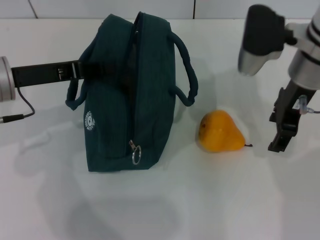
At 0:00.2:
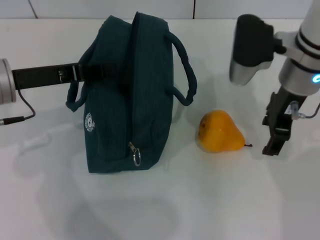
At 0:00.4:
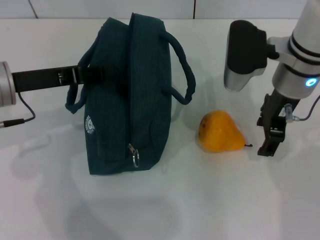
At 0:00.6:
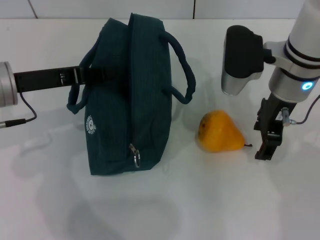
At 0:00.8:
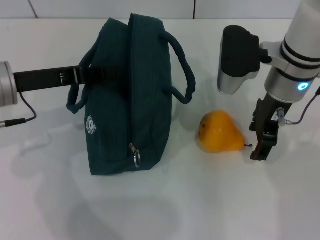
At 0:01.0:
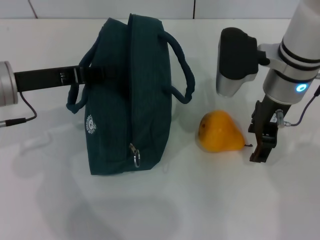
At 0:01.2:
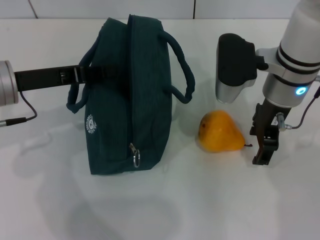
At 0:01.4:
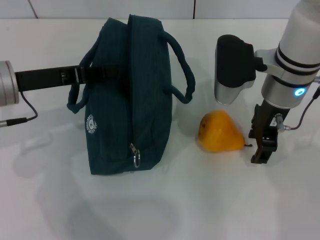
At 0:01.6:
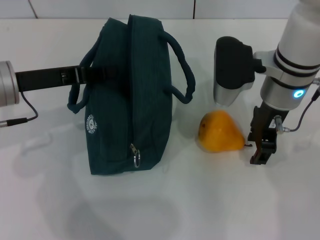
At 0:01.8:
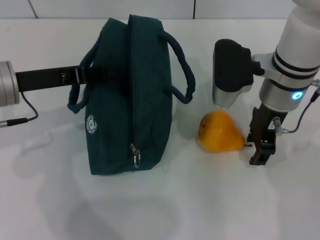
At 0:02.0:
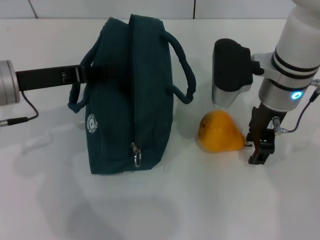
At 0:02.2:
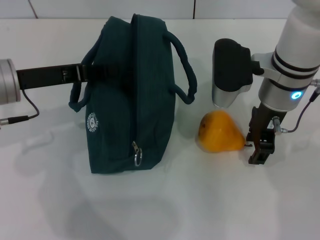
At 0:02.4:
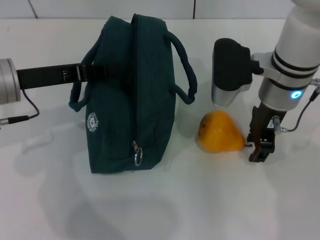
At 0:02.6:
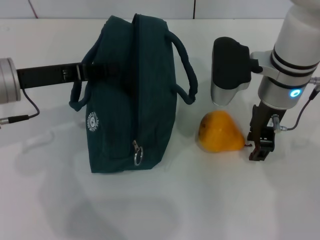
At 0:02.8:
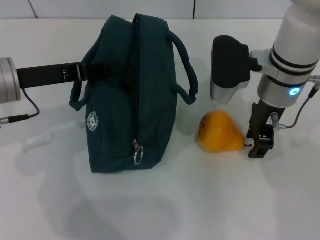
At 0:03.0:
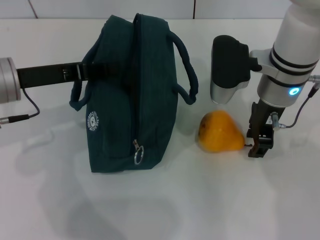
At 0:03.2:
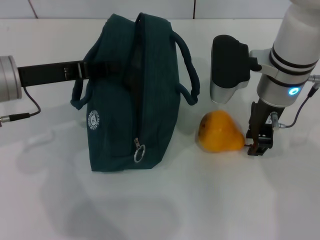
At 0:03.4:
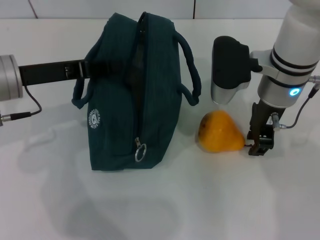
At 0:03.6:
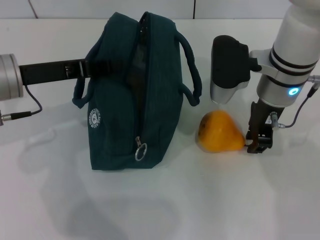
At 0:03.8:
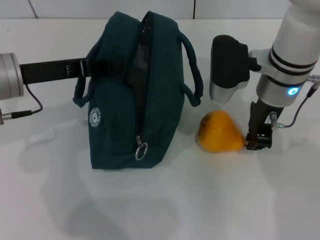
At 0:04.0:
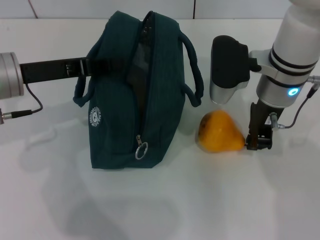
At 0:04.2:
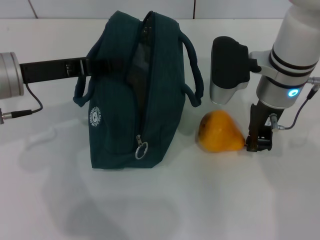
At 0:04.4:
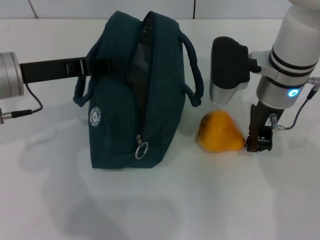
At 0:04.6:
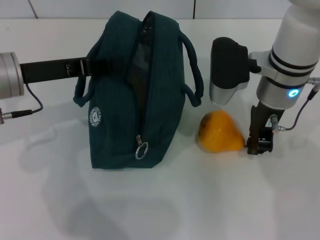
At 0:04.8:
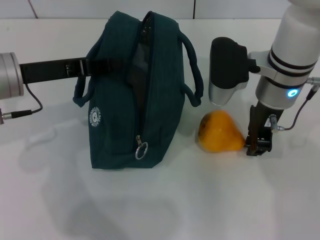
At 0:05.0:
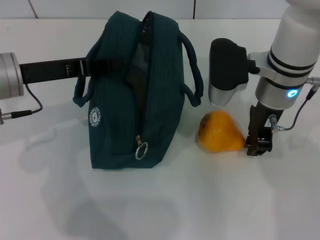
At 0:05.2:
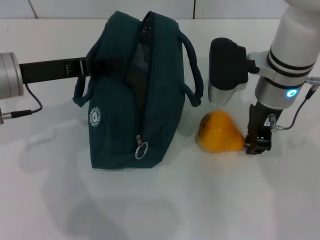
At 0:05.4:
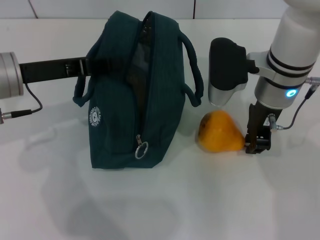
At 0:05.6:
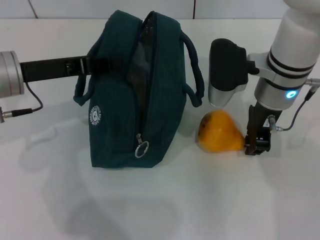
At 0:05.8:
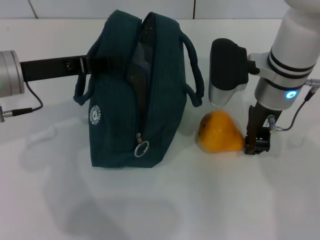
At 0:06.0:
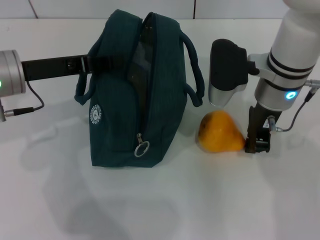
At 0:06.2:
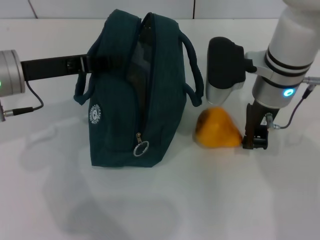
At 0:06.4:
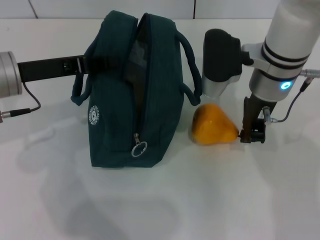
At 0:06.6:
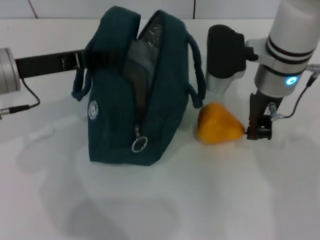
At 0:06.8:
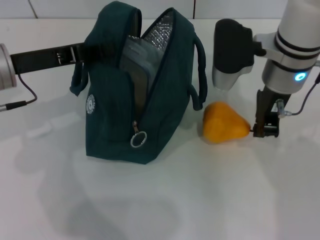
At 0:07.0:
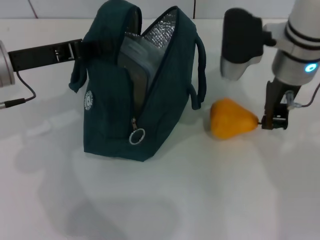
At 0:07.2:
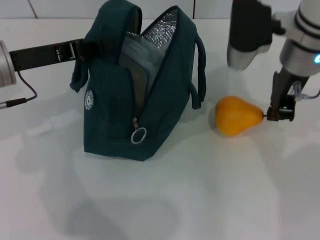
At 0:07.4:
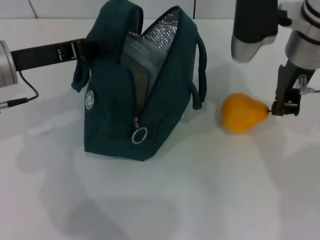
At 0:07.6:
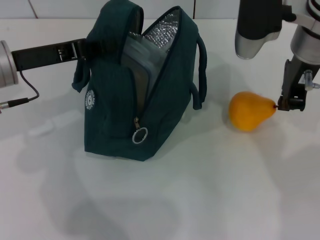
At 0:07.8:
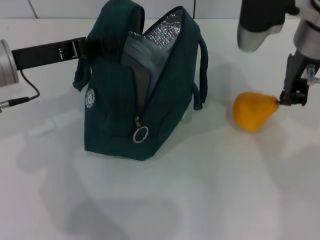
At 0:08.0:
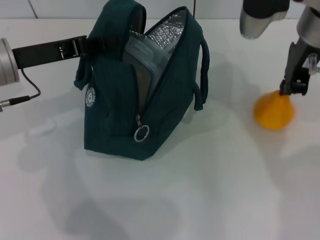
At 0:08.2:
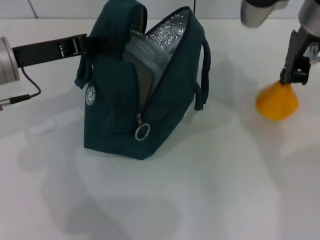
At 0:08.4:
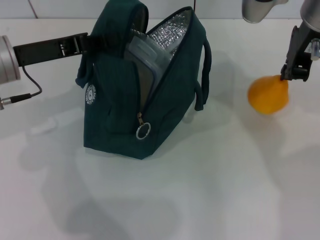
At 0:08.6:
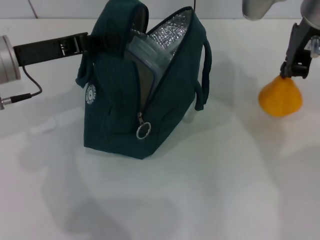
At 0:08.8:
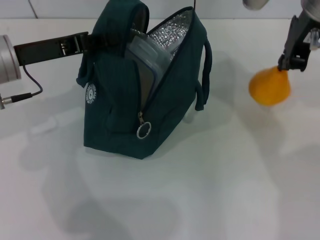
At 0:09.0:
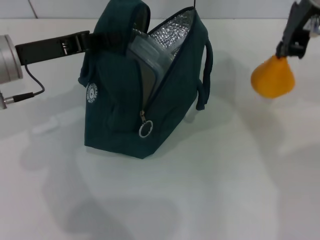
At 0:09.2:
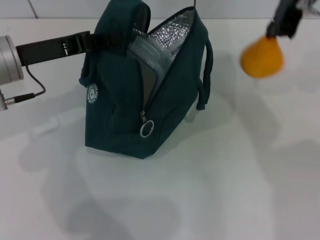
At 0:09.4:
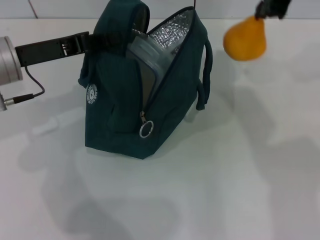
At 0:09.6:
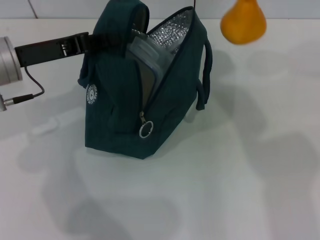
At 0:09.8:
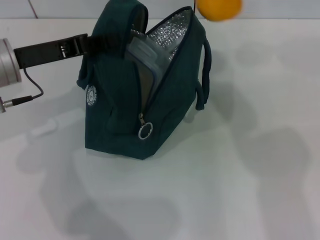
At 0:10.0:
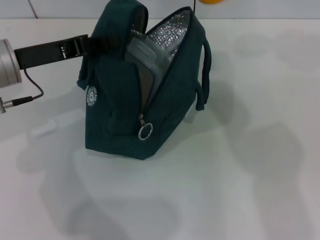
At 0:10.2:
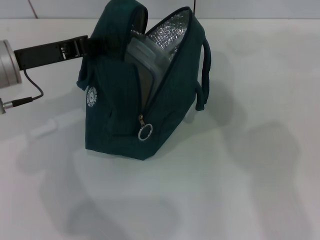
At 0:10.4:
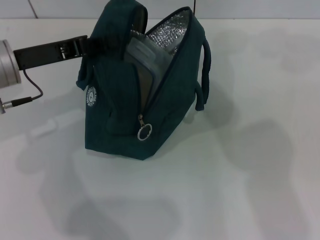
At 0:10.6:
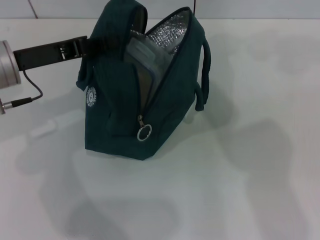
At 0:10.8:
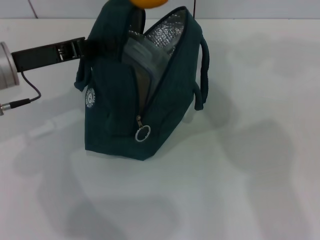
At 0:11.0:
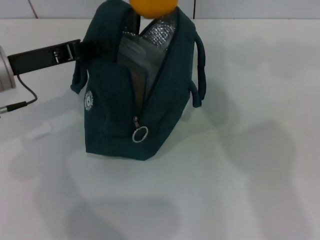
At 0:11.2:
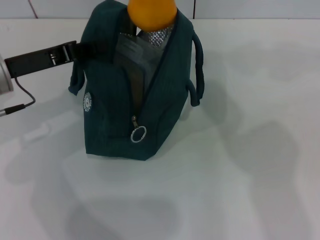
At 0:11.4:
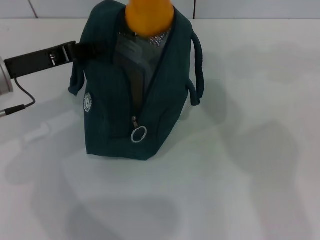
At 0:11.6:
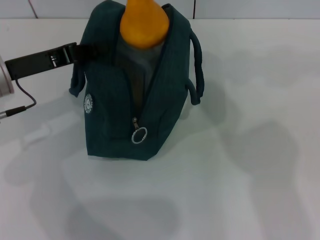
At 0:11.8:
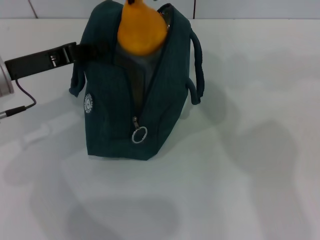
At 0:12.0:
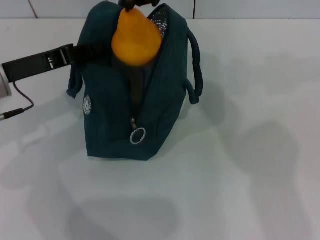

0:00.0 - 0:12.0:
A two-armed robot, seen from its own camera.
Step, 0:00.0 - 0:06.4: Grab the pear with your right hand.
0:00.0 - 0:01.6: The grippers move only a little.
0:01.6 - 0:03.0: Both grippers stay about where they are.
0:03.0 - 0:04.4: The right gripper closes.
0:04.4 - 0:06.0: Neither gripper changes place.
0:06.0 - 0:07.6: The right gripper goes some 10 cm upward.
0:07.6 - 0:09.0: The right gripper moves upward, roughly 5 cm.
0:09.0 - 0:10.4: The right gripper moves upward and to the left, some 15 cm.
0:10.4 - 0:12.0: The right gripper shifts by some 5 cm.

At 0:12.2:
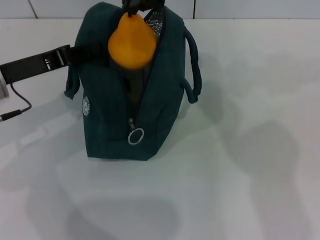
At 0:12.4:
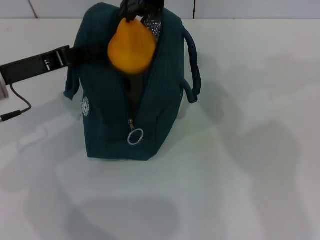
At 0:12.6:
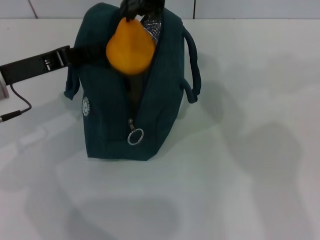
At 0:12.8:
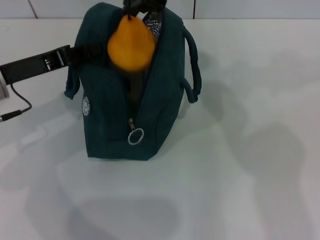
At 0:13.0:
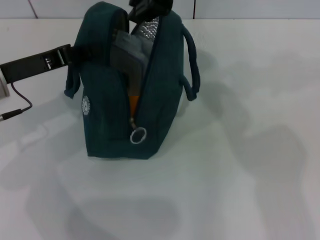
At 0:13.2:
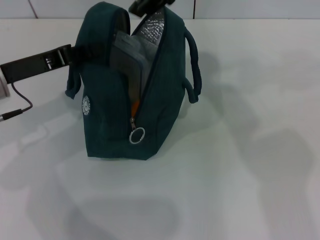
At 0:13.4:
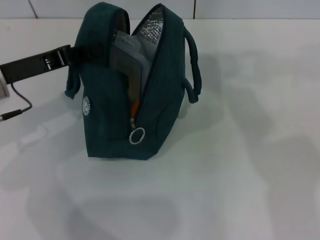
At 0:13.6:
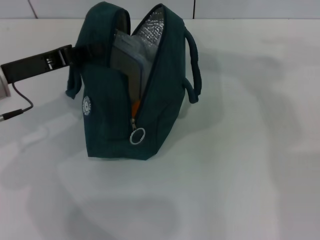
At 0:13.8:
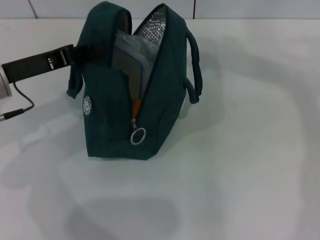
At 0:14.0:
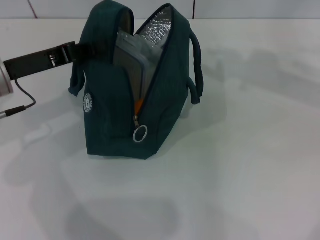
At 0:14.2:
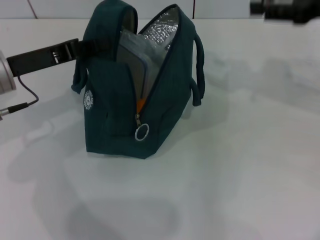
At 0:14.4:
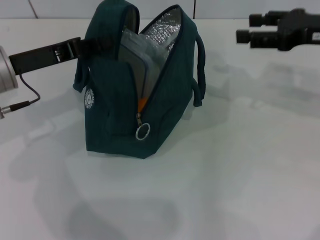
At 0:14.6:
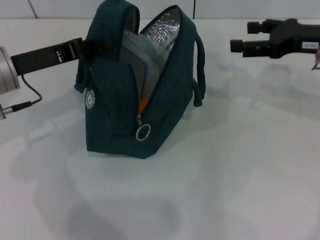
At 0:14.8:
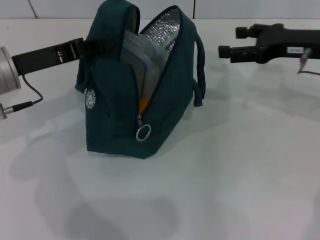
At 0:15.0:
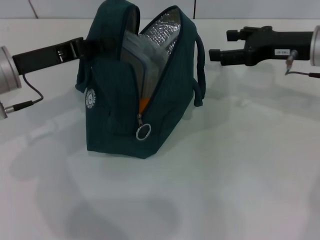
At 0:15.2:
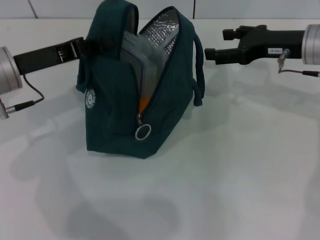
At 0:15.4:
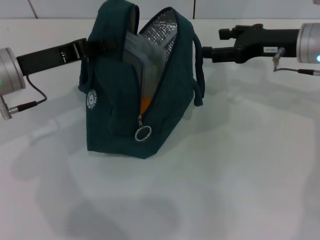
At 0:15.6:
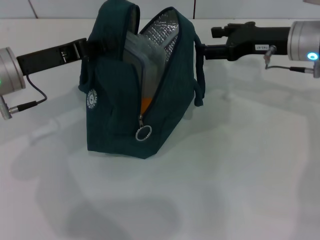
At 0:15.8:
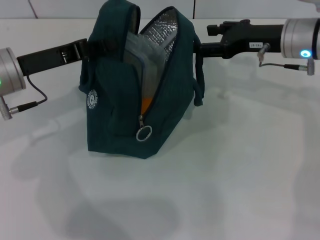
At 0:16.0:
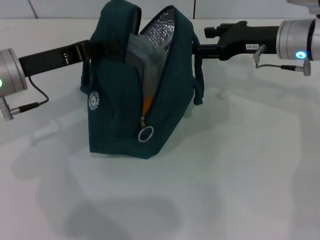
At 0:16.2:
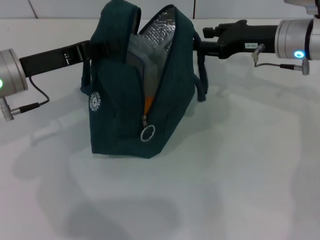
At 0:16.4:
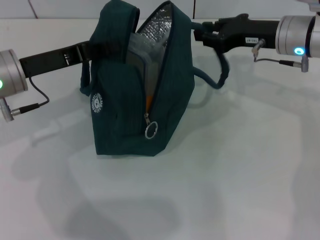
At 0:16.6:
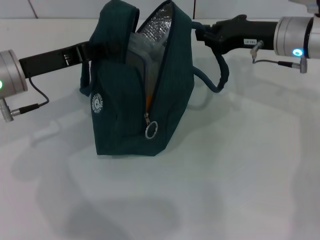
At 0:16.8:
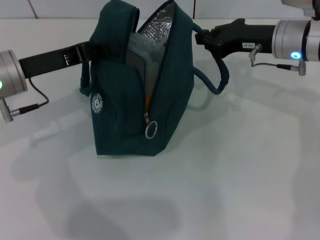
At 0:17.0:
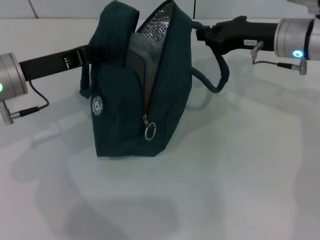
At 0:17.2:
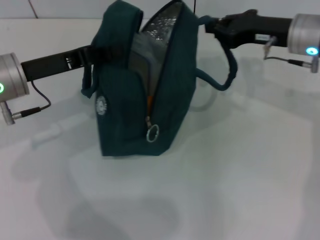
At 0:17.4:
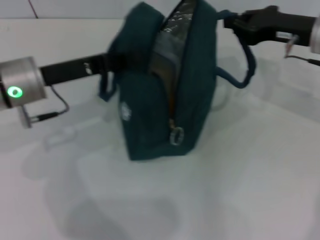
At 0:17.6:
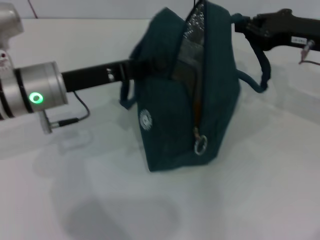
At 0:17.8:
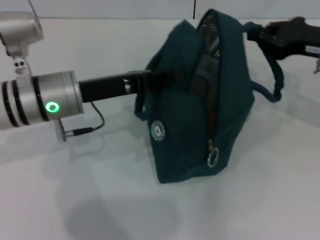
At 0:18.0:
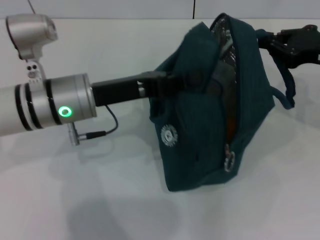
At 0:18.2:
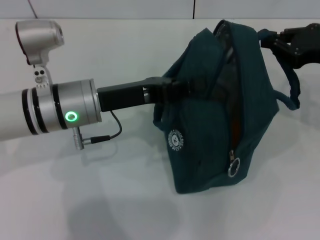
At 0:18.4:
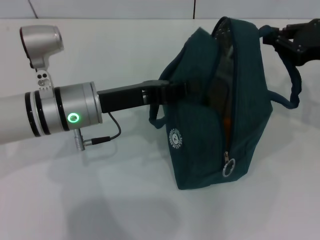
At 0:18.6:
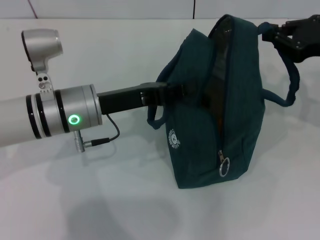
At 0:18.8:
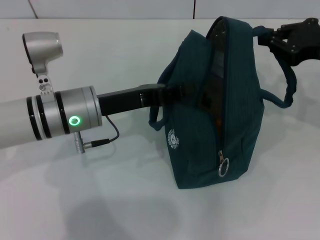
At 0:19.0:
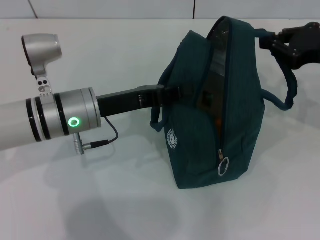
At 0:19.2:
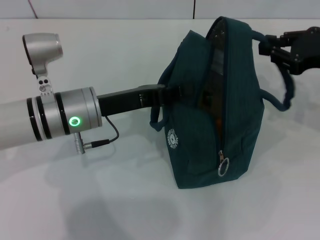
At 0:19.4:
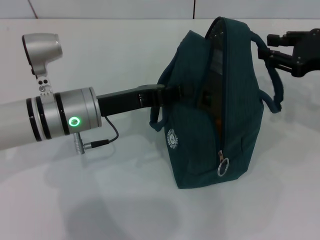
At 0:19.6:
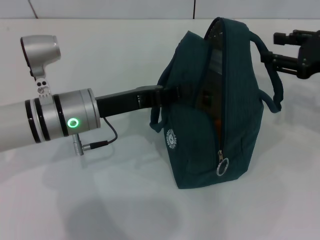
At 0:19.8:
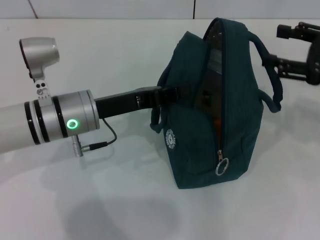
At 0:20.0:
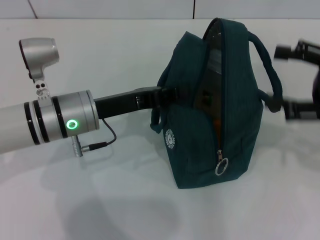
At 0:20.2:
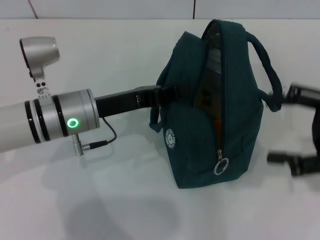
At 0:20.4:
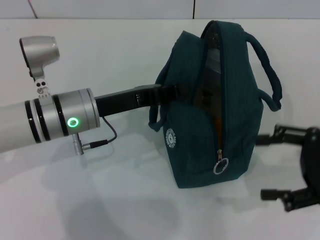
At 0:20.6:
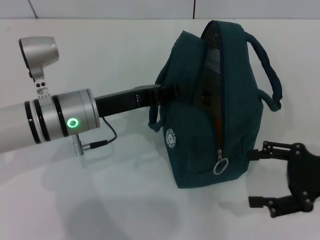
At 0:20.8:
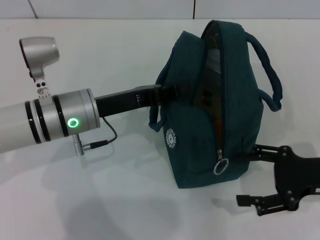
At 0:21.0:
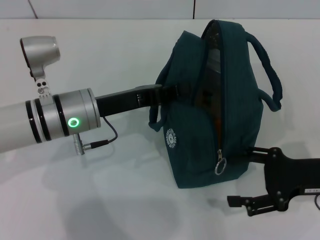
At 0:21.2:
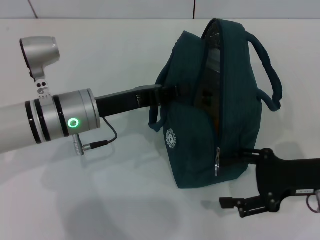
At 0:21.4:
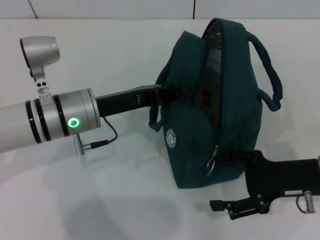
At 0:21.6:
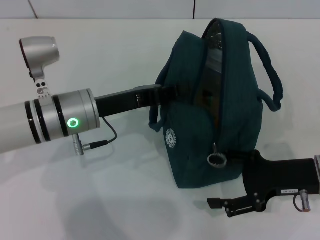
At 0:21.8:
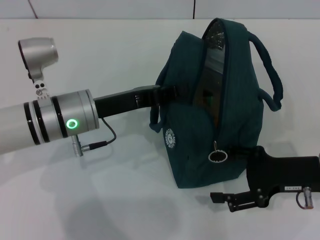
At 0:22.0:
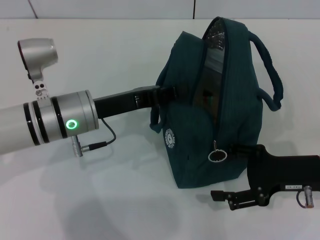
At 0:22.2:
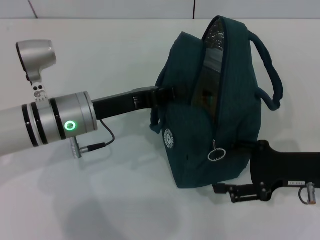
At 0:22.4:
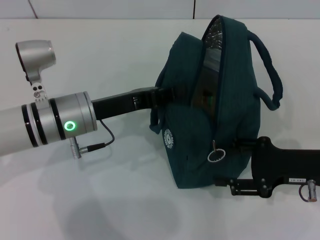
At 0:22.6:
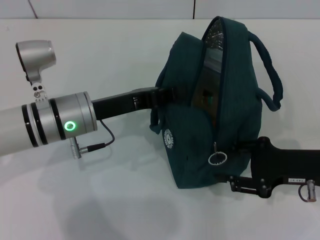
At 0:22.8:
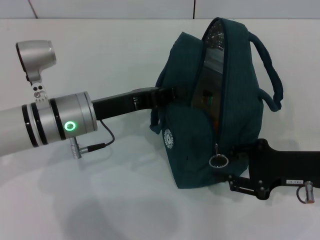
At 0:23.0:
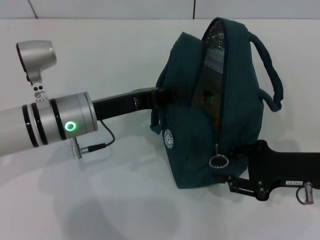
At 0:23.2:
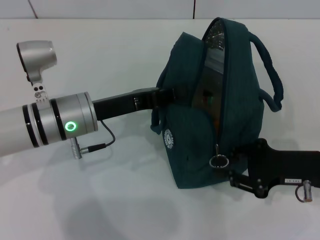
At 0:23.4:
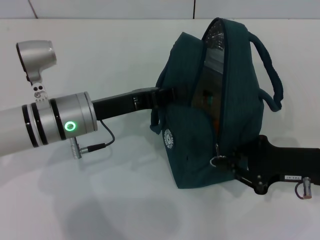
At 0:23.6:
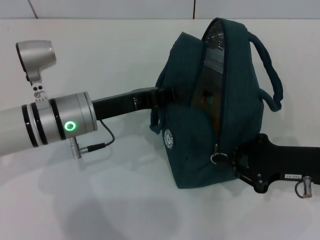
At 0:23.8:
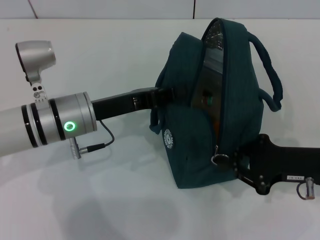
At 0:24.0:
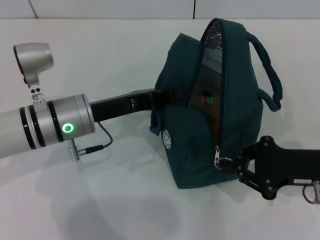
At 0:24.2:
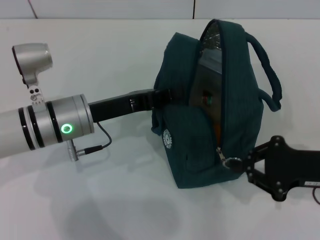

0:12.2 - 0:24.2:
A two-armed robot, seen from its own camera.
Step, 0:13.6 - 0:19.6: Hold the lunch bag with your right hand.
0:12.2 - 0:13.8: The right gripper is displaced to the right by about 20 cm, and opens up.
0:13.8 - 0:15.2: The right gripper shifts approximately 20 cm downward, and opens up.
0:15.2 - 0:16.6: The right gripper closes its fingers.
0:16.6 - 0:18.2: The left gripper goes about 10 cm to the right, while the right gripper shifts about 10 cm to the right and backward.
0:18.2 - 0:19.8: The right gripper opens its fingers.
0:19.8 - 0:21.2: The right gripper shifts roughly 10 cm downward and backward.
0:21.2 - 0:22.6: The grippers stay close to where they were, moving slightly.
0:22.6 - 0:24.2: The right gripper closes its fingers.
